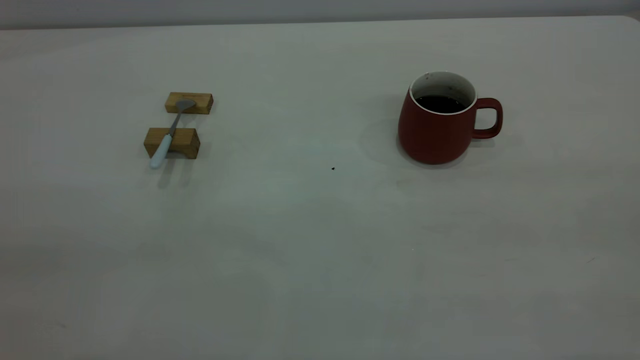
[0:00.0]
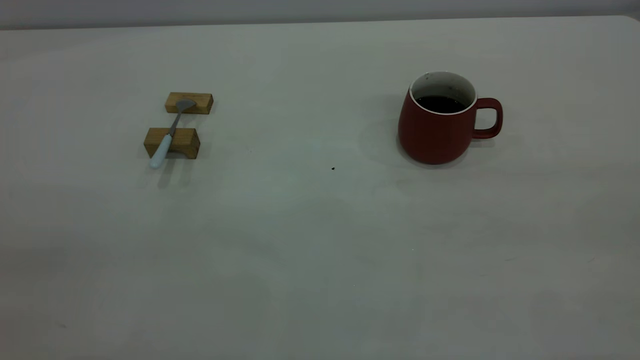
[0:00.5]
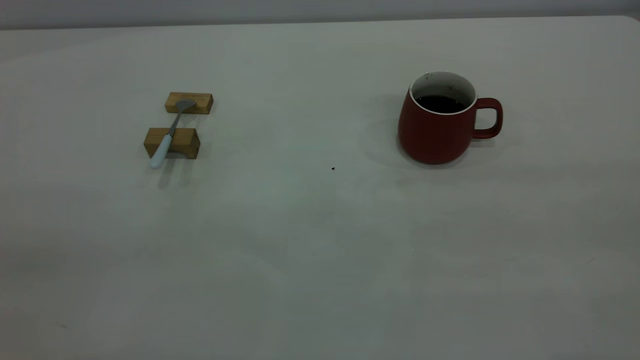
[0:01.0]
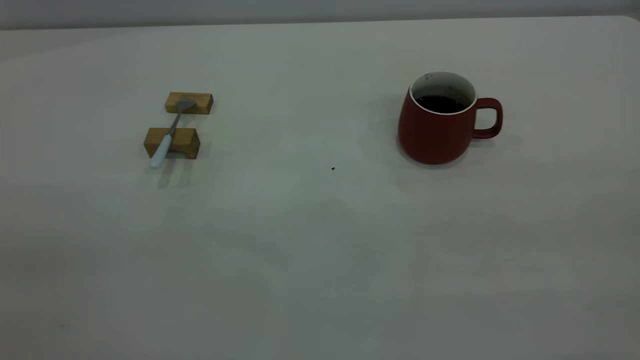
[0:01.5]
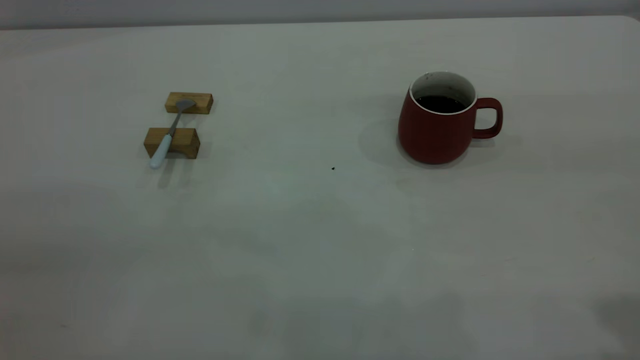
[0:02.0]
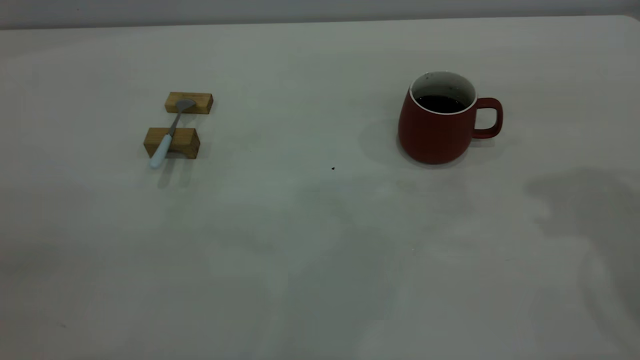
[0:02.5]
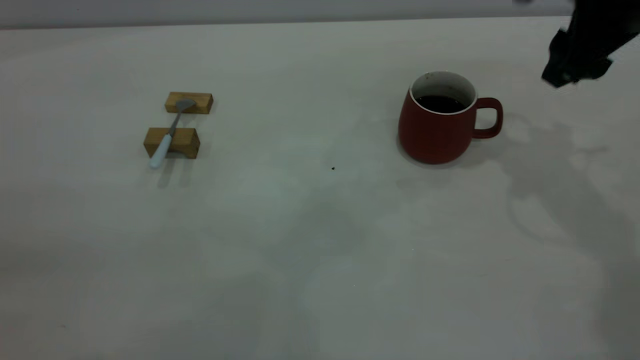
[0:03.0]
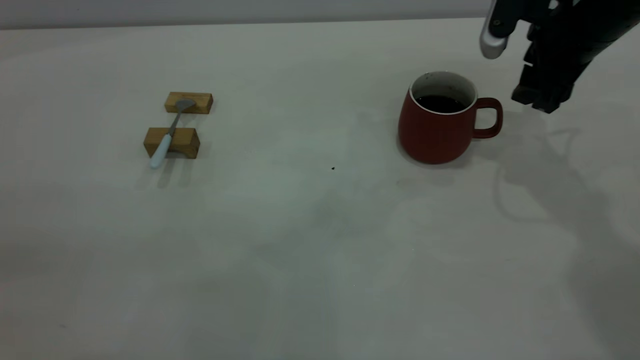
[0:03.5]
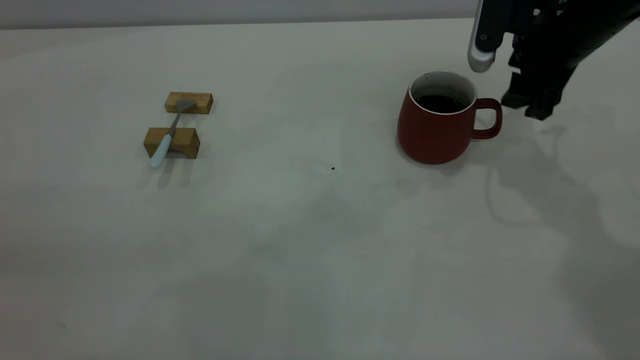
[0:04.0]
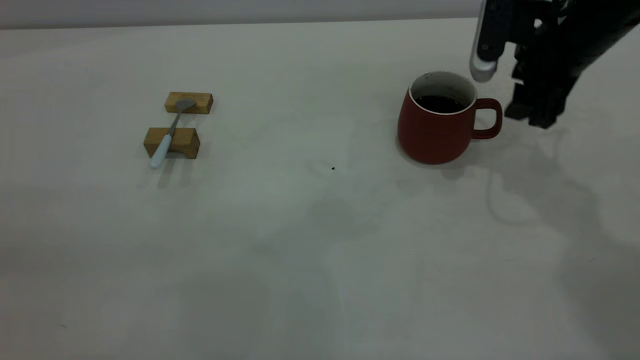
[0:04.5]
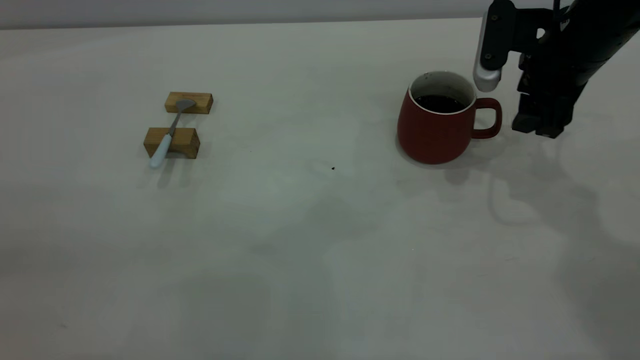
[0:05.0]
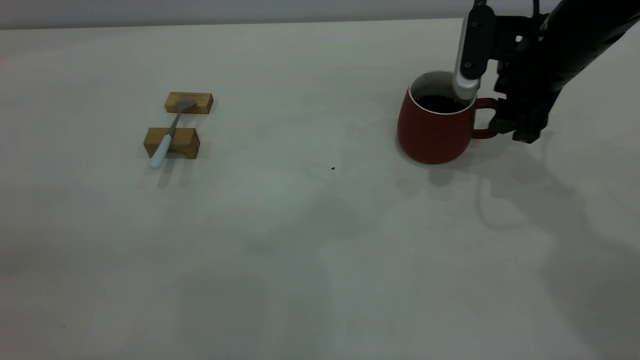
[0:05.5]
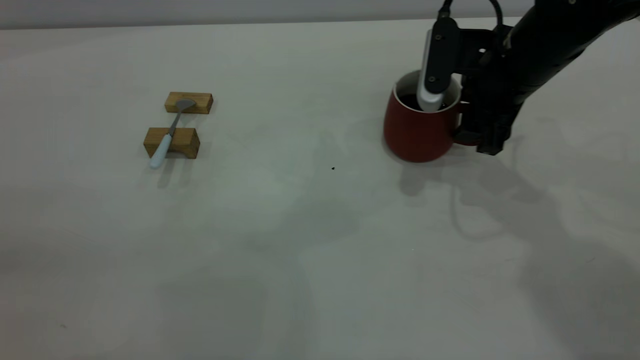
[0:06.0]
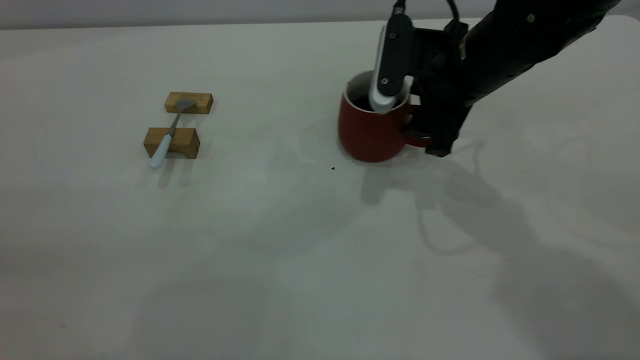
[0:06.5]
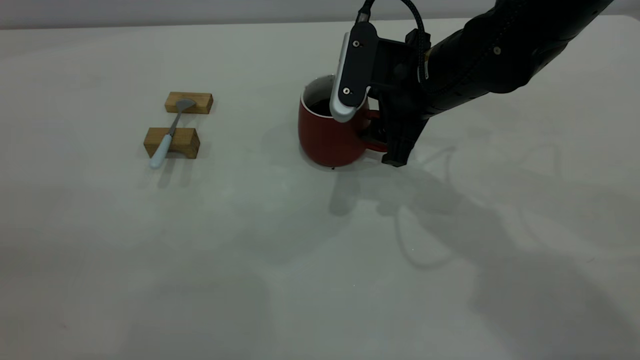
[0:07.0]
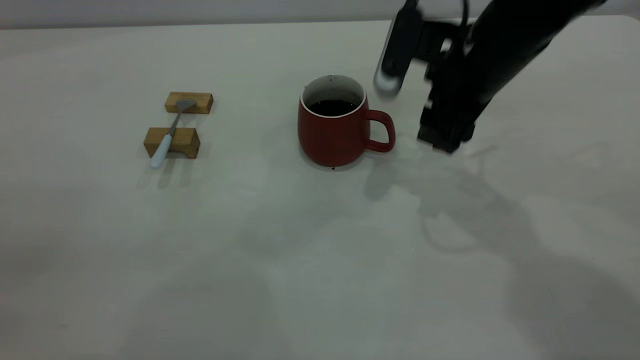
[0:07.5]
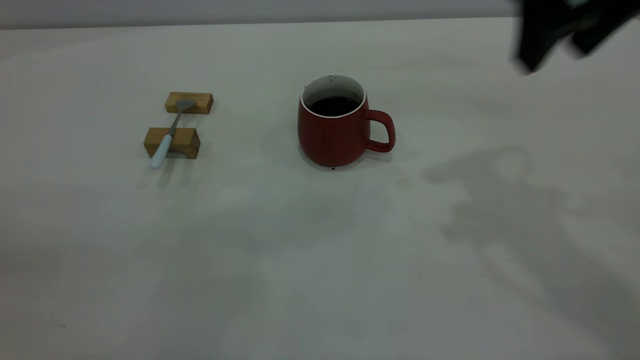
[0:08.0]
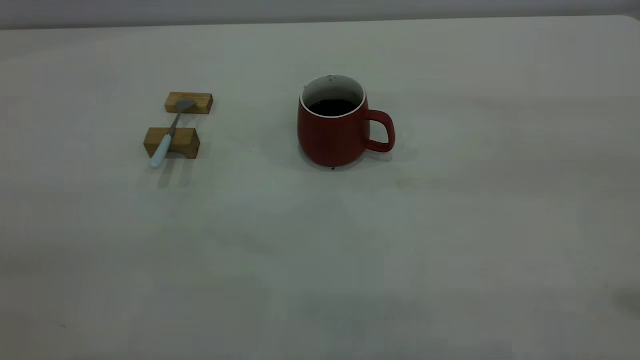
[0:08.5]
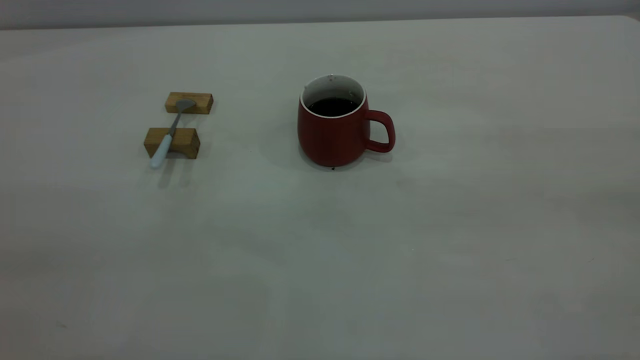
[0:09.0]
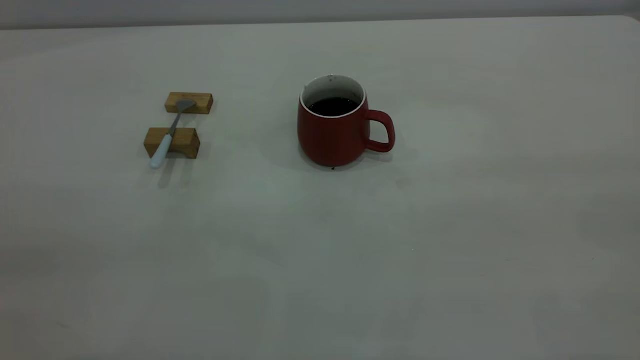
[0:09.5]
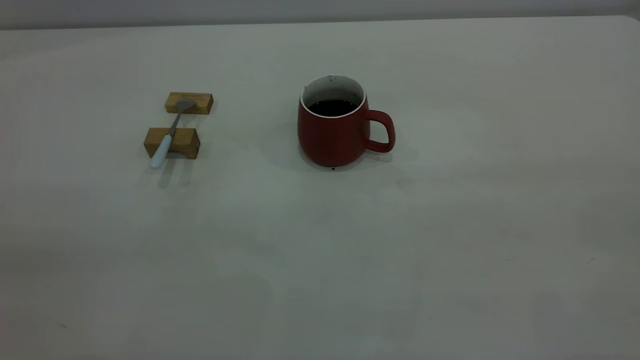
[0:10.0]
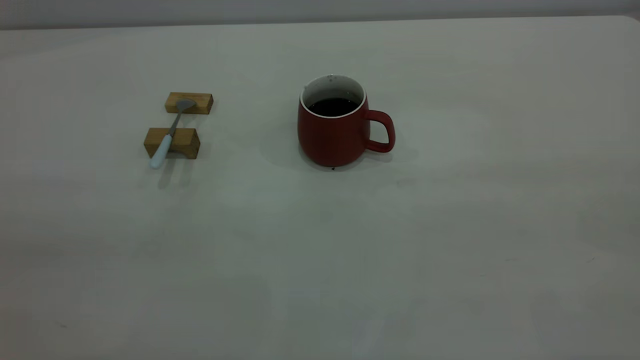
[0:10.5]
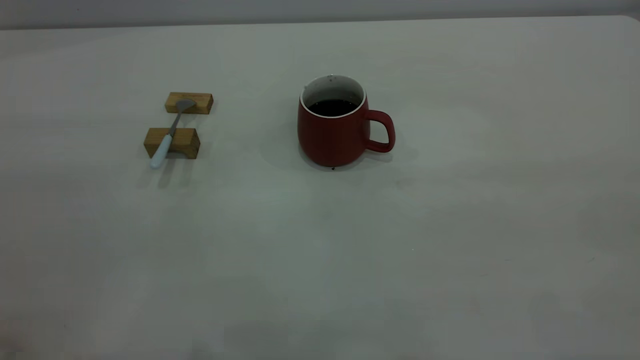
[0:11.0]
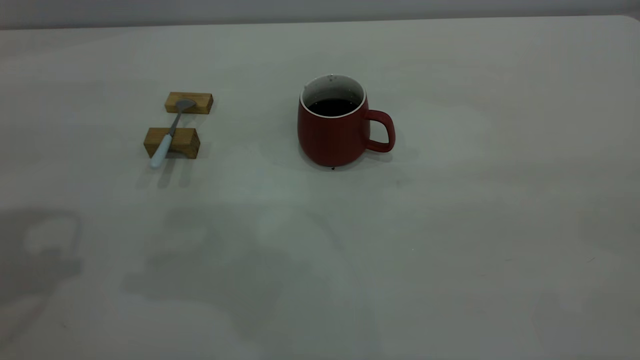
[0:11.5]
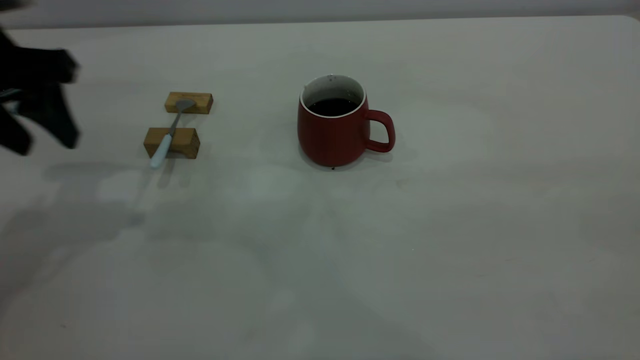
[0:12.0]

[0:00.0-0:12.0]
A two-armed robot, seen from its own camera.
Step, 0:00.0 to 0:07.5: Move the cup with coffee to the center of view.
0:02.0 to 0:04.0: The right gripper goes some 35 cm forward and downward.
0:04.0 to 0:06.0: The right gripper moves to the left, roughly 5 cm.
0:06.0 to 0:08.0: The right gripper travels upward and backward by roughly 20 cm.
0:08.0 to 0:10.0: The right gripper moves backward, roughly 30 cm.
0:10.0 to 0:12.0: The left gripper is displaced forward and downward by approximately 35 cm.

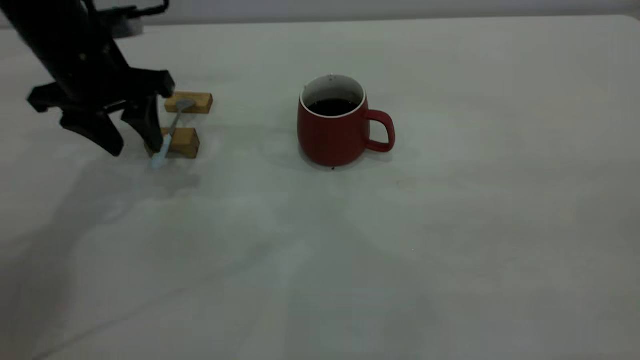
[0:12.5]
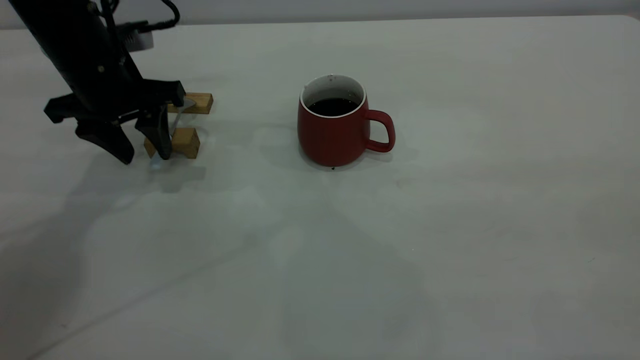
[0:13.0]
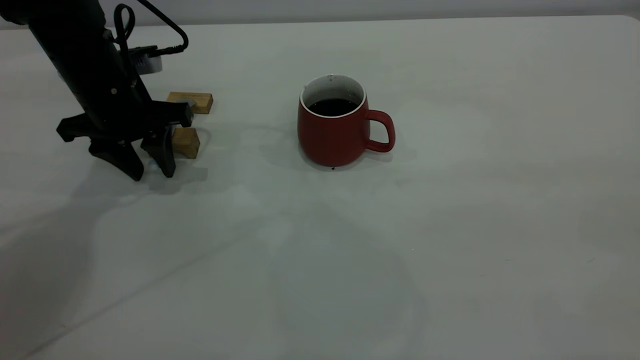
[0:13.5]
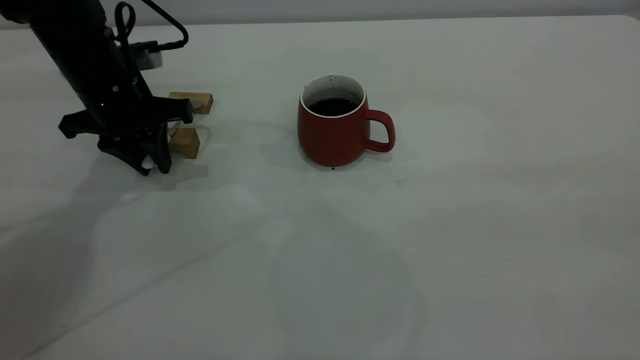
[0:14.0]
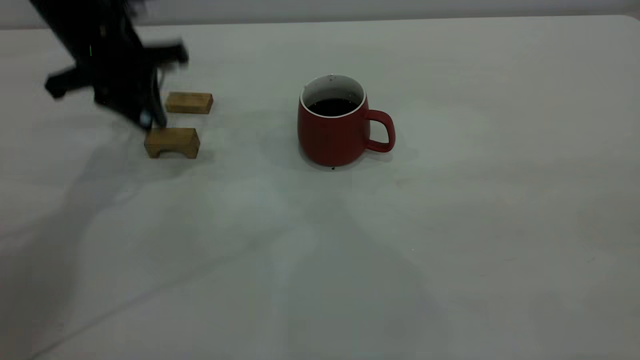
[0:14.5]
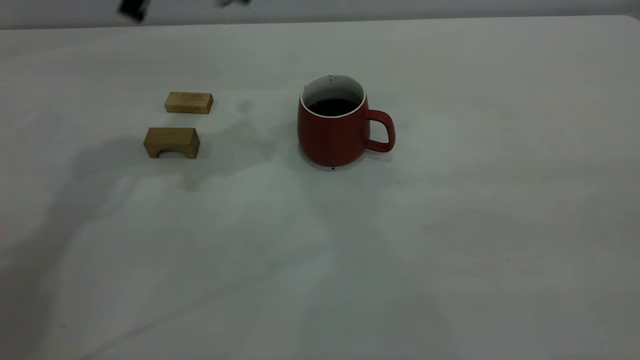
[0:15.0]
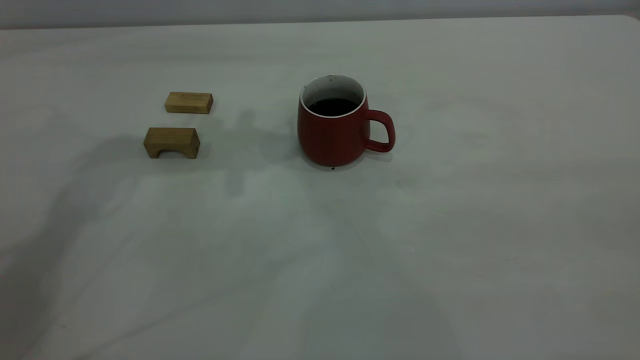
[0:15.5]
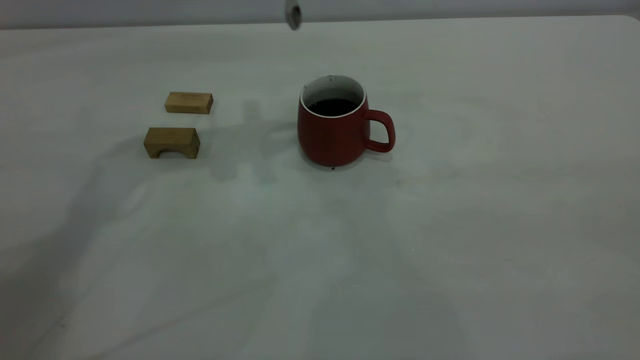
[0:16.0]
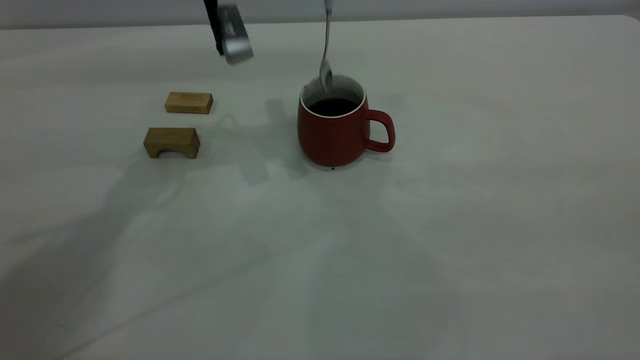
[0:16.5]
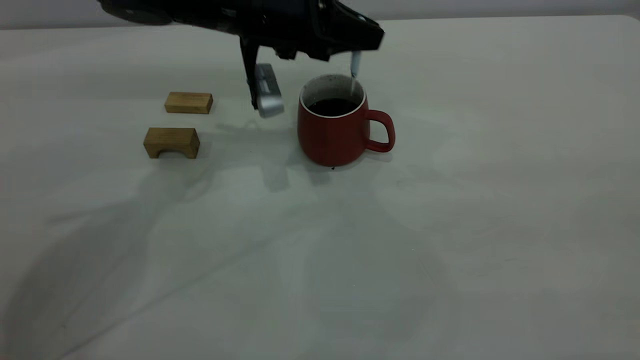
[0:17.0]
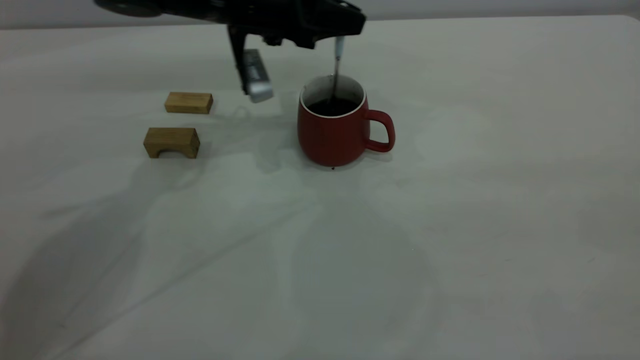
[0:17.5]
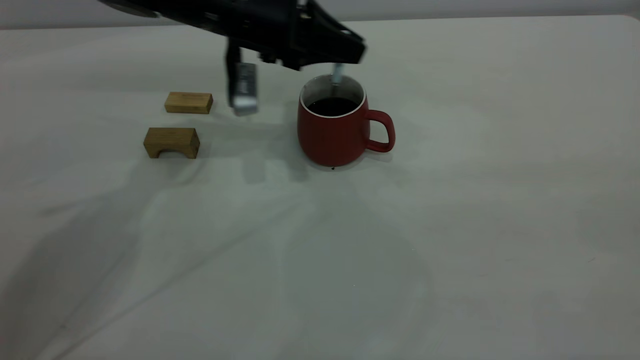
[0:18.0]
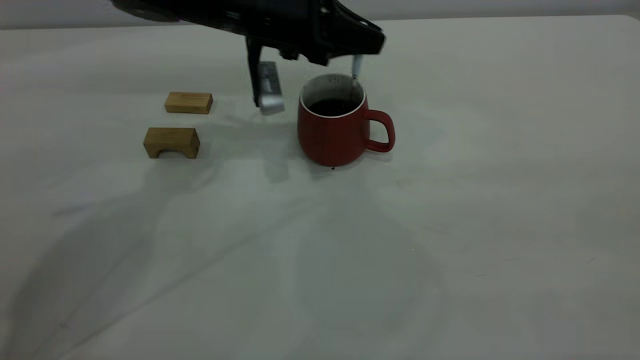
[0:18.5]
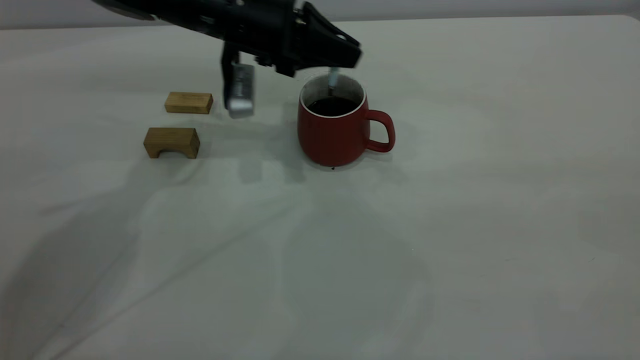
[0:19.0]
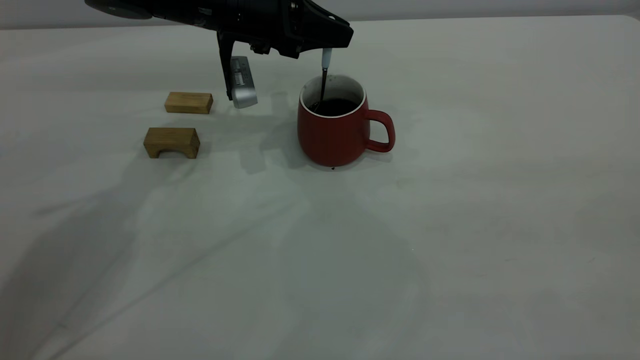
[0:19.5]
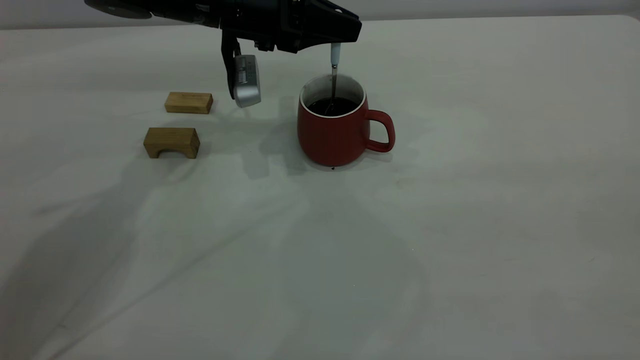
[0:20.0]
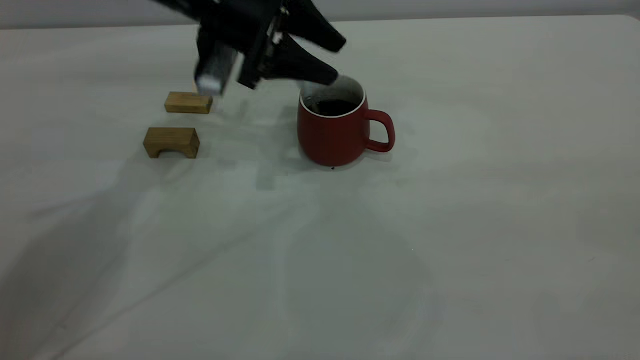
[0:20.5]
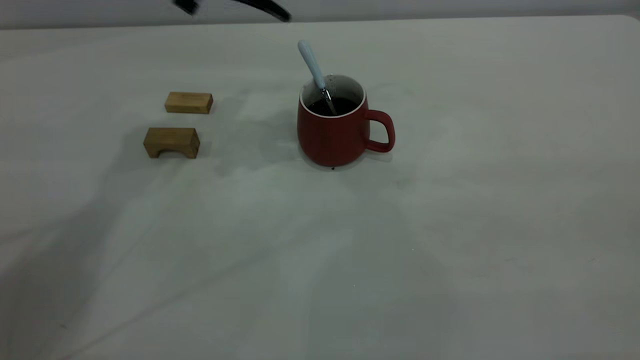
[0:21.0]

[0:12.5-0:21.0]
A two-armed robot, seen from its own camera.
Step, 0:12.5 to 0:14.5: Pick up the spoon.
Step, 0:15.0 to 0:20.5: Stir the coffee in the cup.
0:12.5 to 0:14.5: The left gripper closes up.
0:14.5 to 0:16.5: The left gripper goes roughly 10 cm to the right, and travels upward and back again, some 10 cm each way.
0:16.5 to 0:19.0: The left gripper heads downward, covering roughly 5 cm.
0:19.0 to 0:21.0: The left gripper shifts approximately 15 cm upward, and opens.
